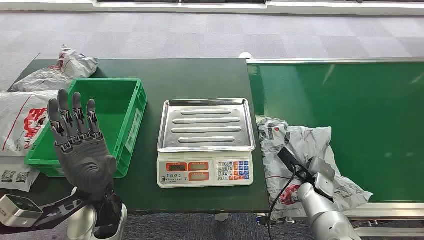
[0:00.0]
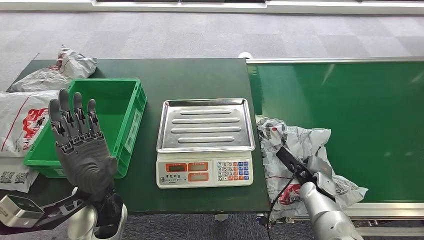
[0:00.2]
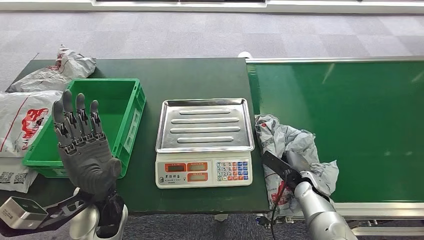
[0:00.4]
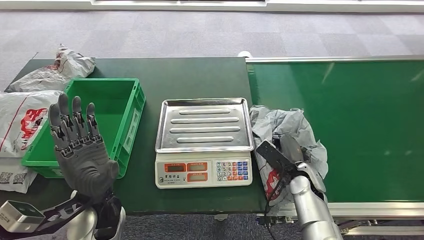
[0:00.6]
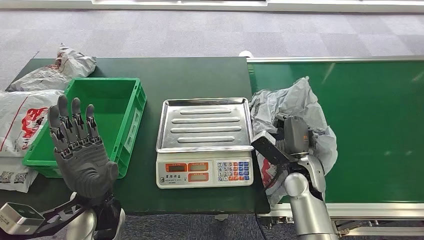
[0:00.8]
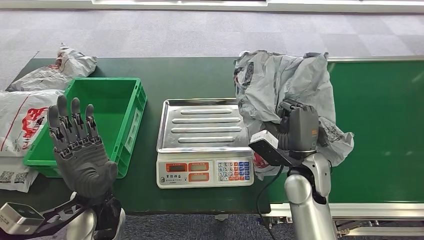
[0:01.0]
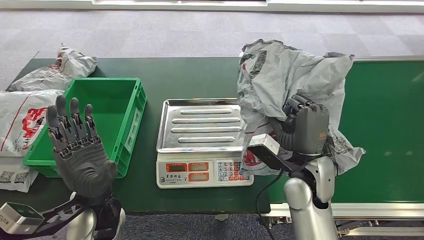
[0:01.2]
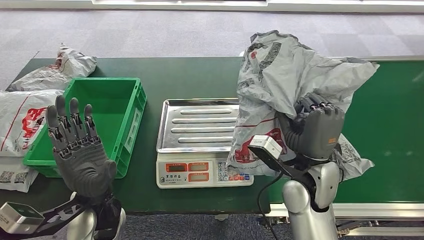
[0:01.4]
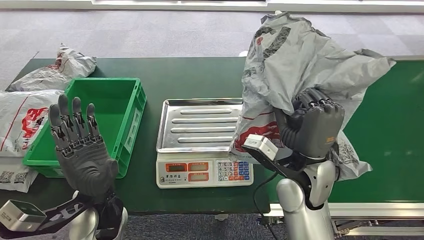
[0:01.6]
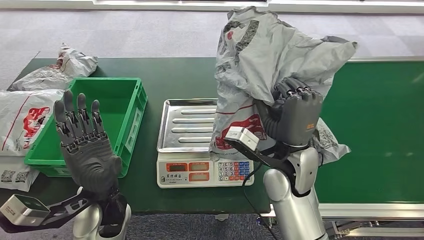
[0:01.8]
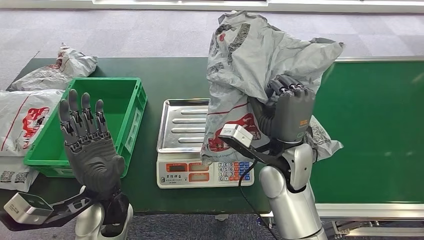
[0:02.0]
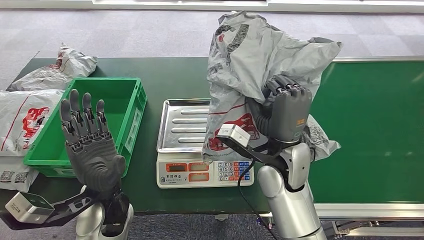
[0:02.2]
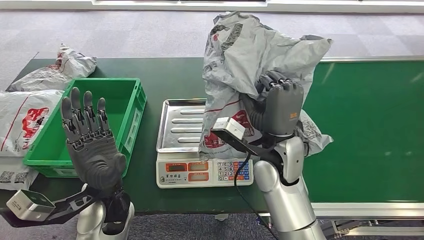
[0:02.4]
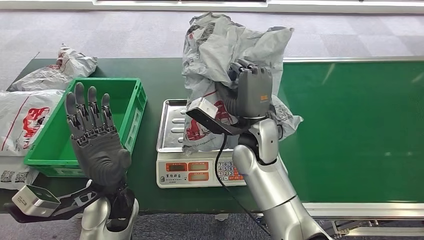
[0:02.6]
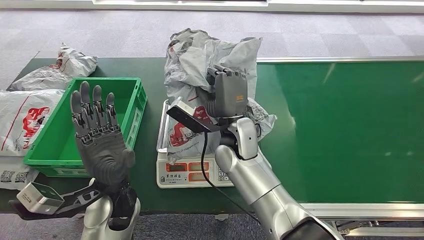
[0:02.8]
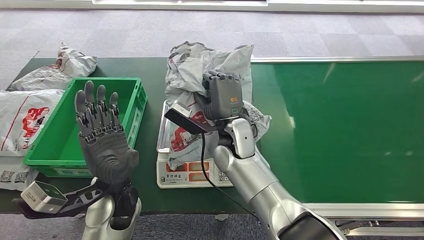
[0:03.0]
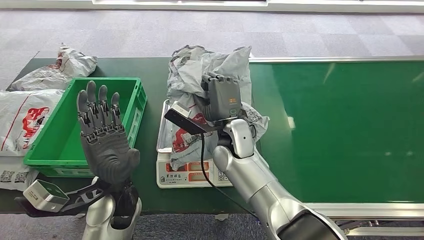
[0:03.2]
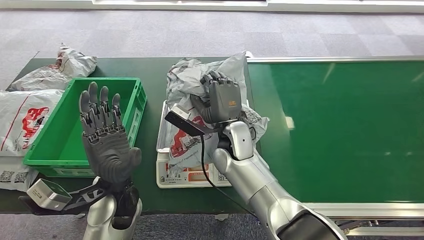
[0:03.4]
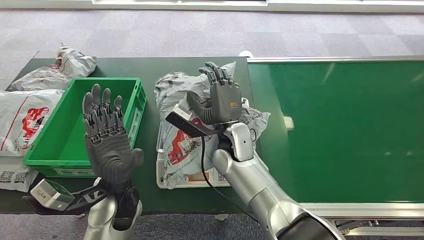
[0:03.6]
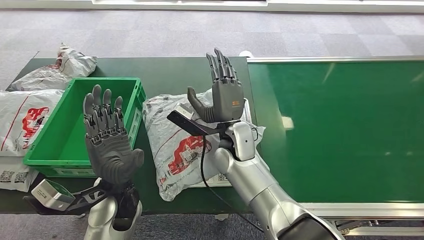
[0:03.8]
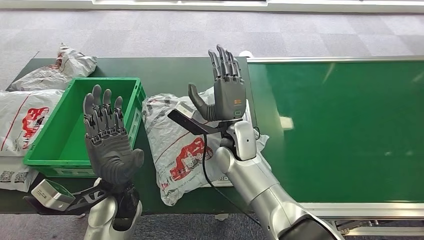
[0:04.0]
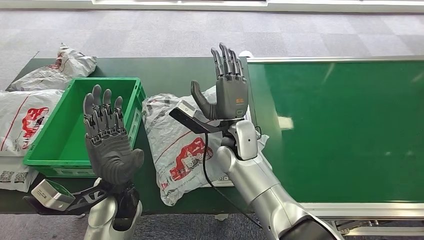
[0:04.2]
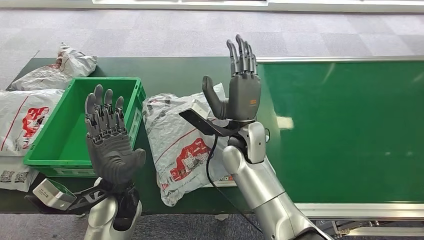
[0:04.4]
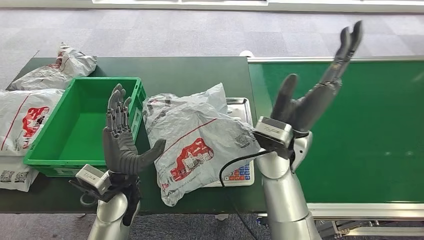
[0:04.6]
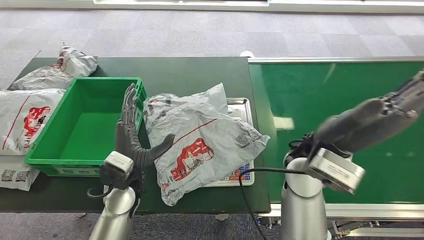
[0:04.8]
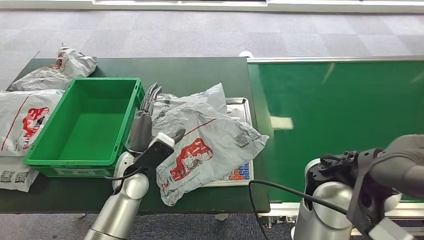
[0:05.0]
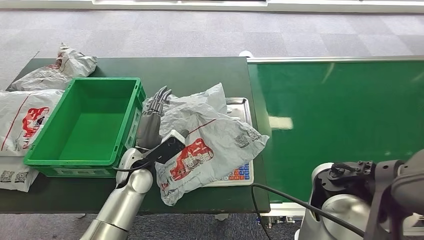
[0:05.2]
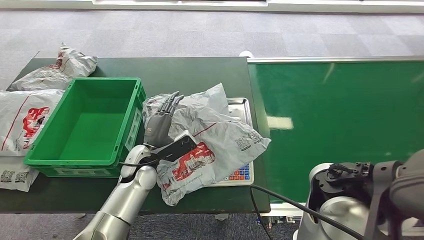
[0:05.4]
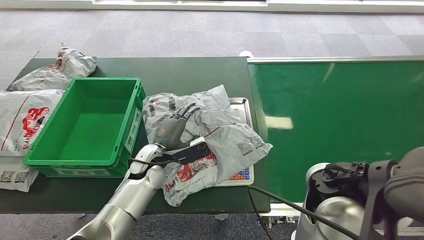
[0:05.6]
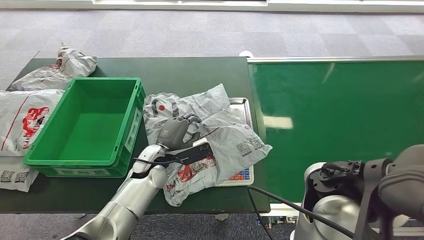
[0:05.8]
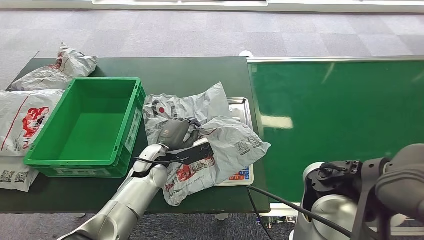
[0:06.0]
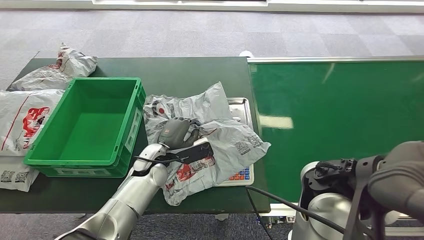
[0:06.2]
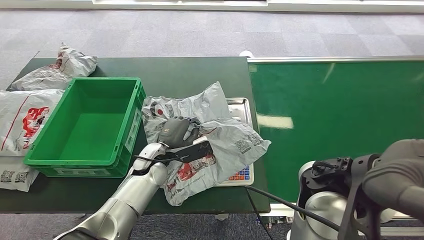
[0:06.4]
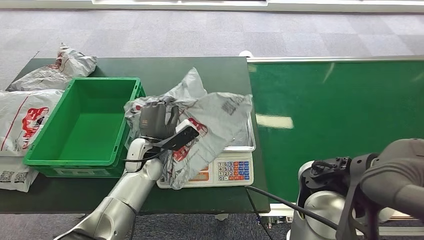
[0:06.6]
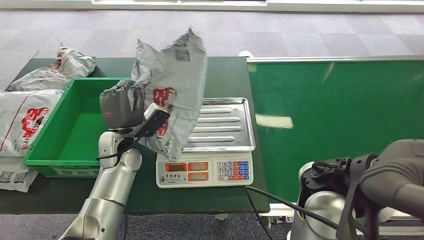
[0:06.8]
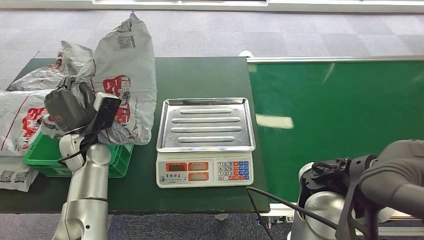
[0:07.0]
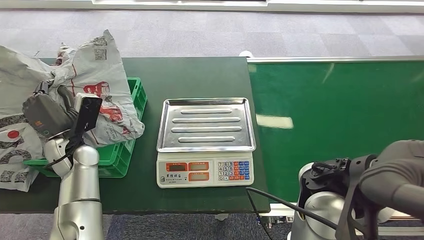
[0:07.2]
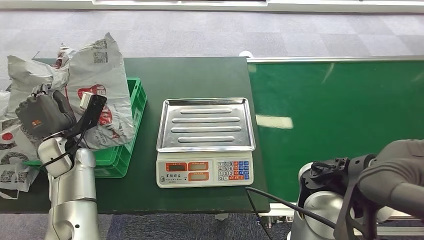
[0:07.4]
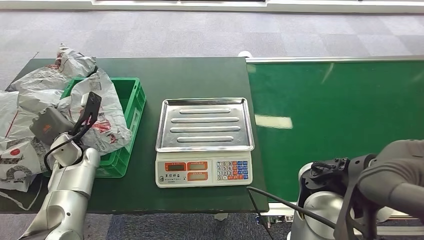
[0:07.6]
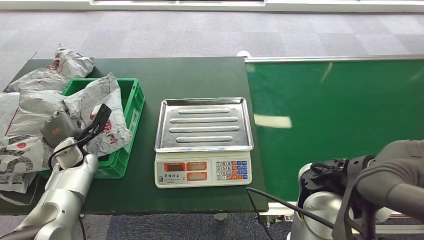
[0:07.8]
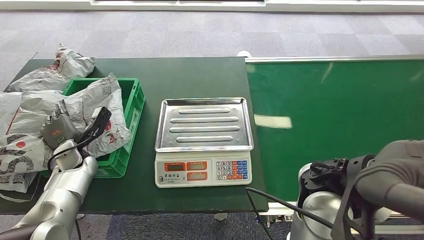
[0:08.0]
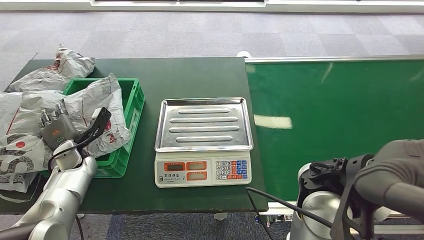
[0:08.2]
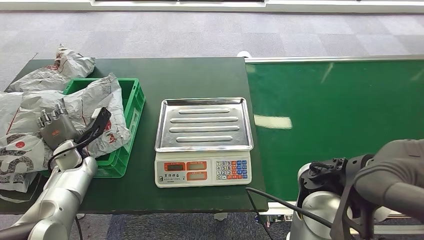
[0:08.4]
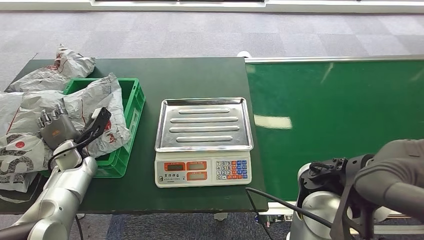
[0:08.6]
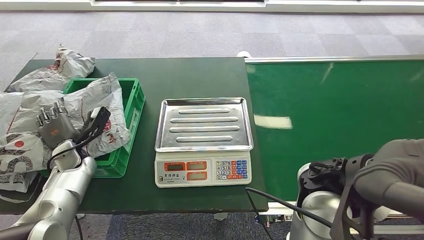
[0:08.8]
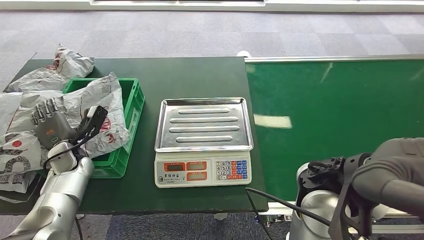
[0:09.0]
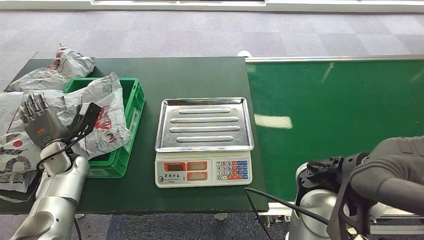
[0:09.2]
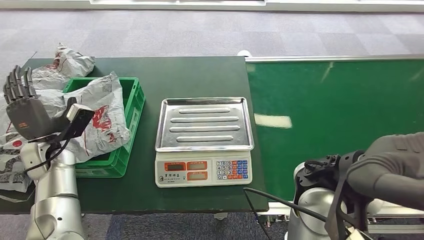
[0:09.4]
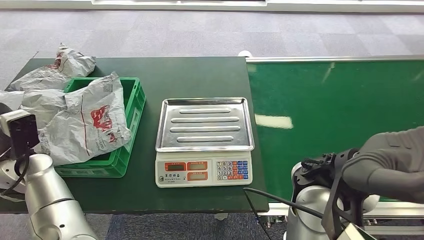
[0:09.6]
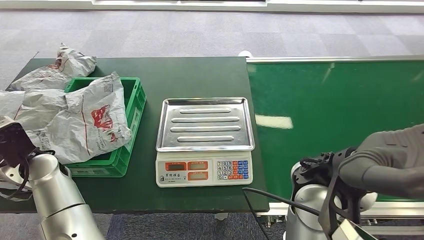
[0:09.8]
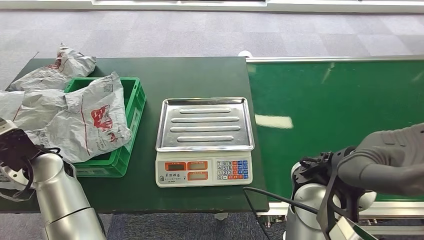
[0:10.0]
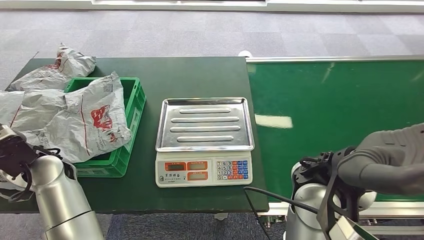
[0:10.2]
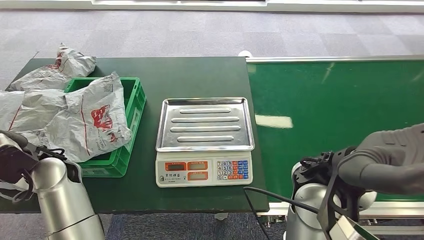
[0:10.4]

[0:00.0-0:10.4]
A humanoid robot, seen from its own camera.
Step, 0:00.0 to 0:01.2: Pick up the package from the conveyor belt.
Step, 0:01.4 to 0:04.6: Place the package onto the inbound machine.
Step, 0:04.8 to 0:07.4: Pick up the package from the inbound machine.
Step, 0:07.6 to 0:10.4: Place the package into the parcel locker.
0:03.0 to 0:04.4: The hands stay close to where they were, moving slightly.
